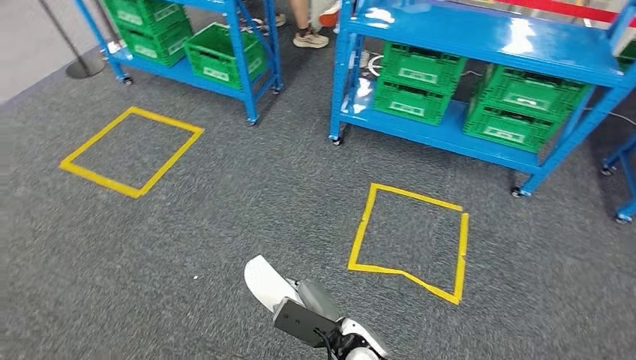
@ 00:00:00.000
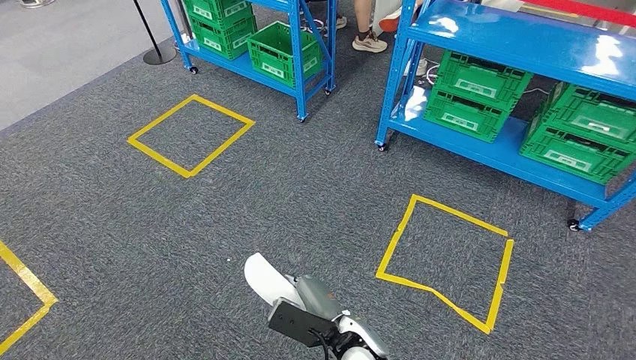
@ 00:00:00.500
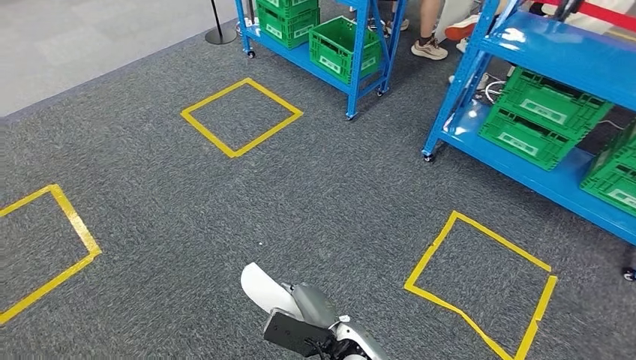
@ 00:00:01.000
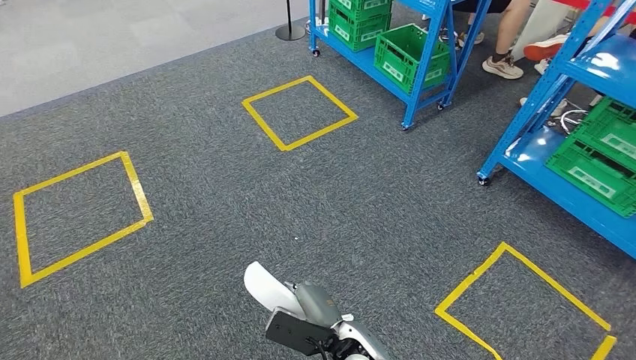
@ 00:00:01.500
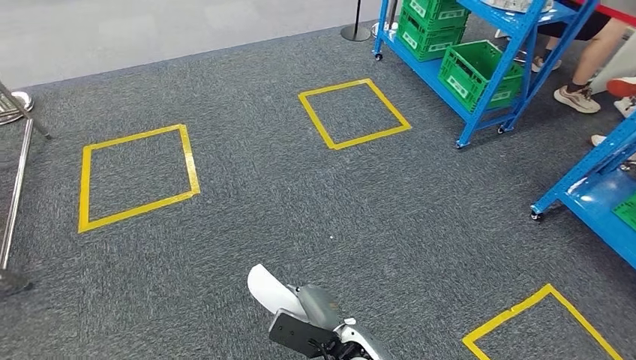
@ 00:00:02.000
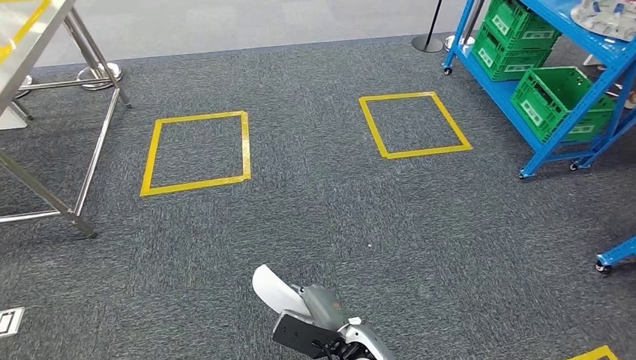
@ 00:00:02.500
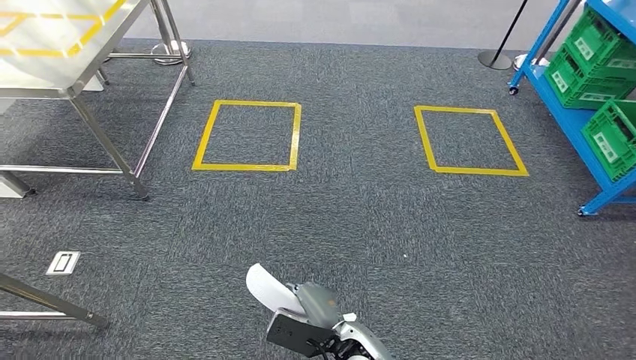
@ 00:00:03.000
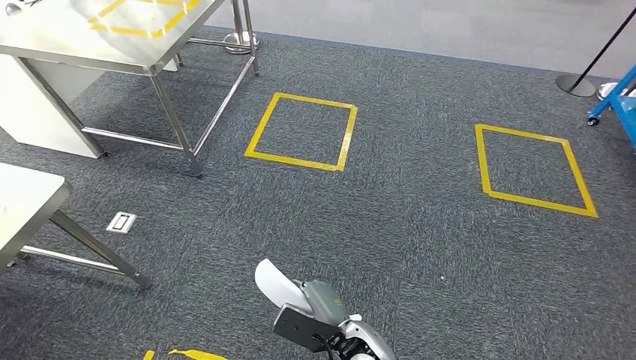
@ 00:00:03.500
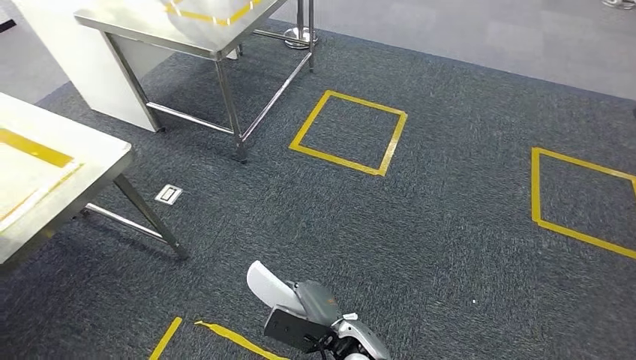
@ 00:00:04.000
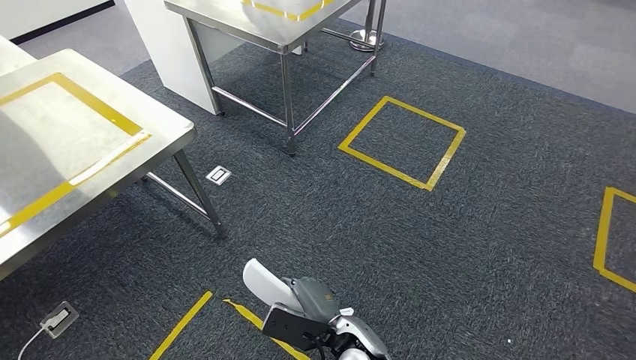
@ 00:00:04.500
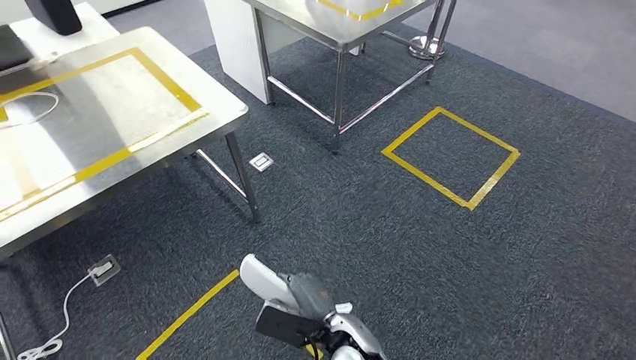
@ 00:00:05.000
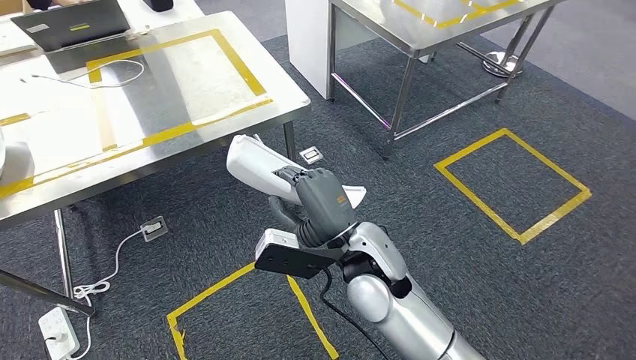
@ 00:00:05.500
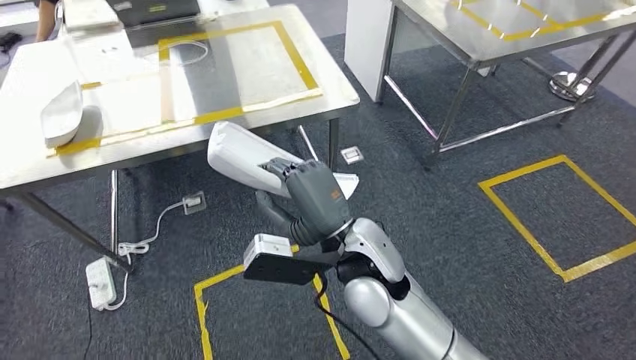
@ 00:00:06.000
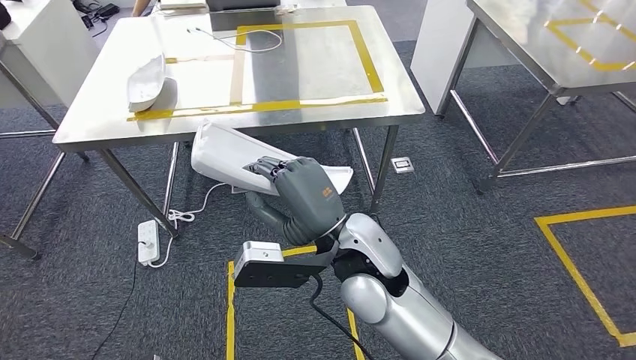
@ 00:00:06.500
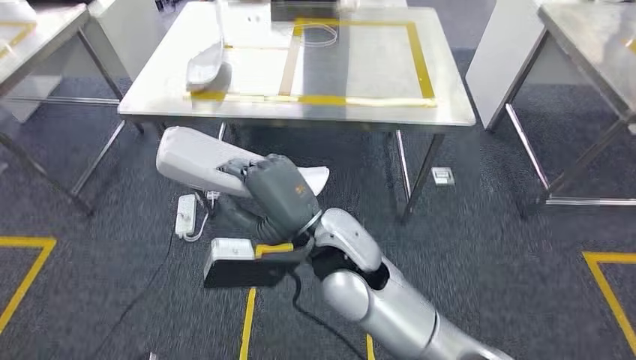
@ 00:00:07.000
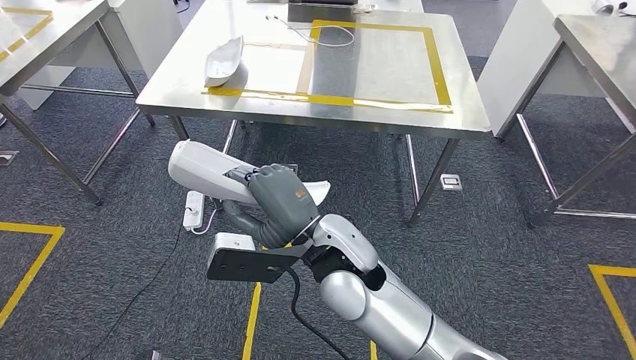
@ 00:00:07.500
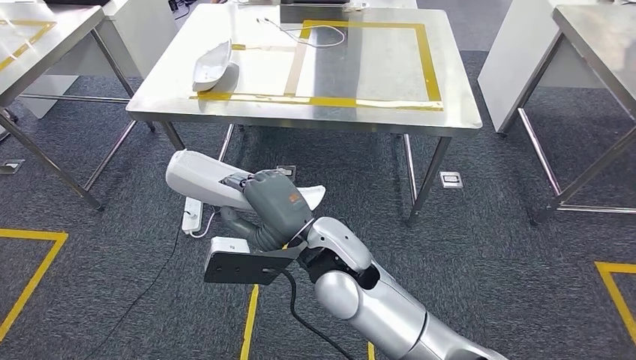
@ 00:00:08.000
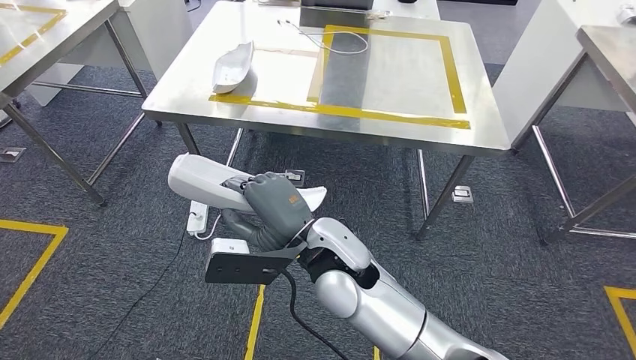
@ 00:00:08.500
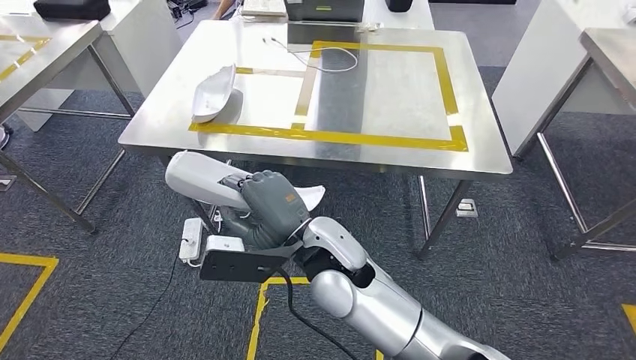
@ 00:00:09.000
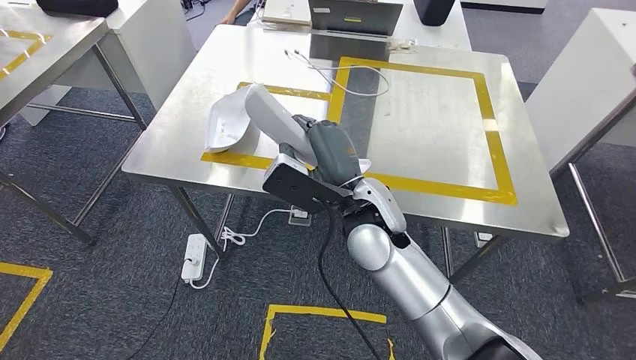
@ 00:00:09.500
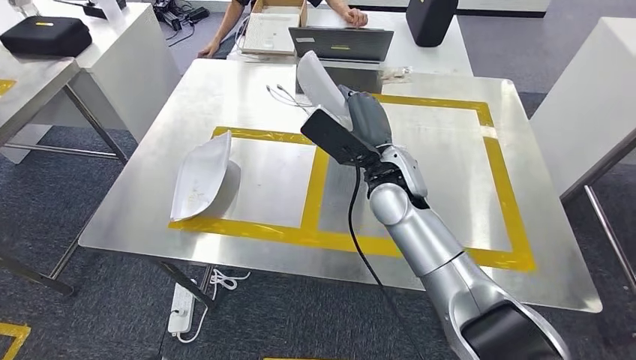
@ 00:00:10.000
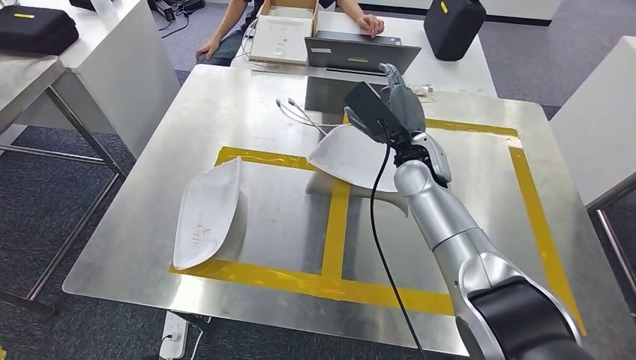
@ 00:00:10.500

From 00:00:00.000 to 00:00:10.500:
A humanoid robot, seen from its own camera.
Step, from 00:00:00.000 to 00:00:09.000: Move the small parts to the workbench.

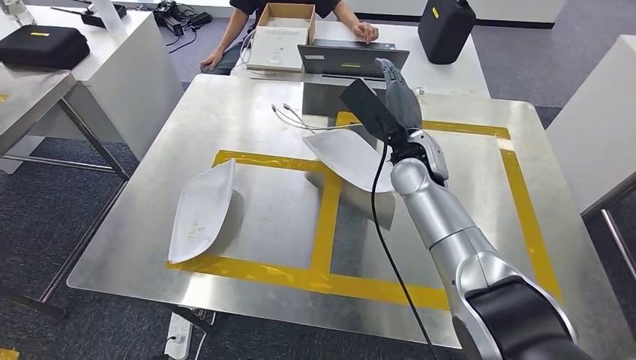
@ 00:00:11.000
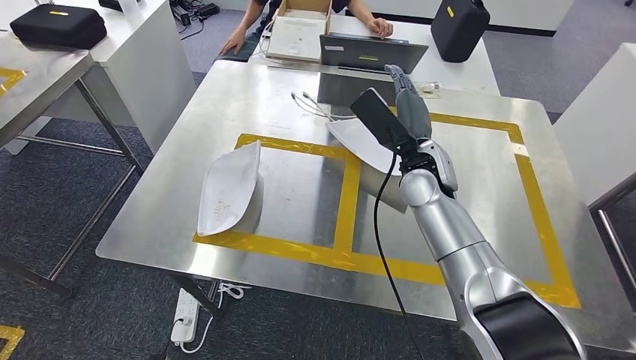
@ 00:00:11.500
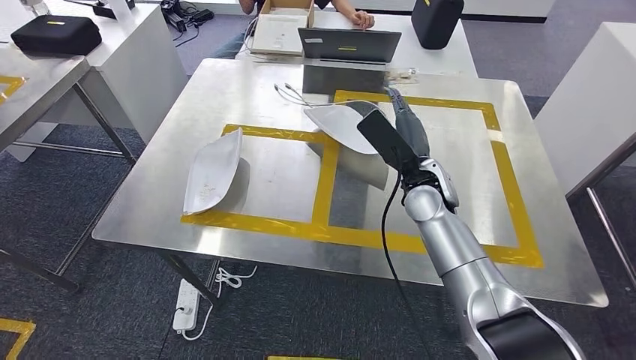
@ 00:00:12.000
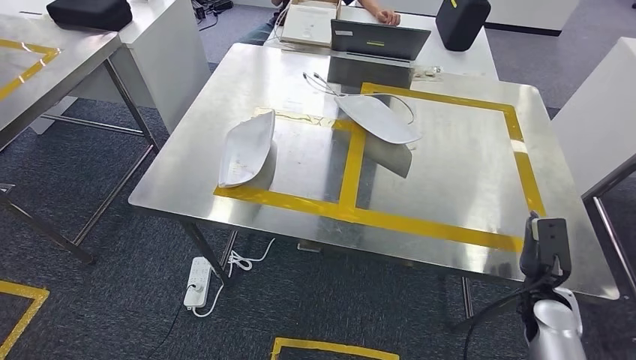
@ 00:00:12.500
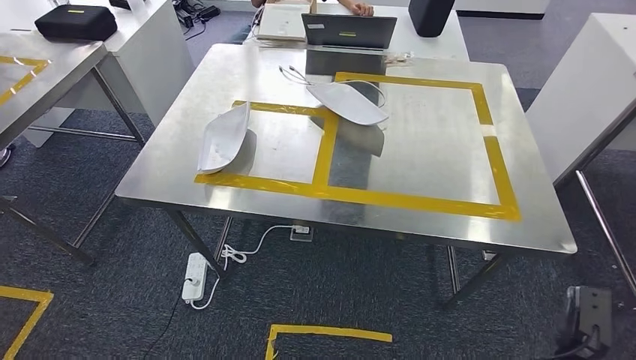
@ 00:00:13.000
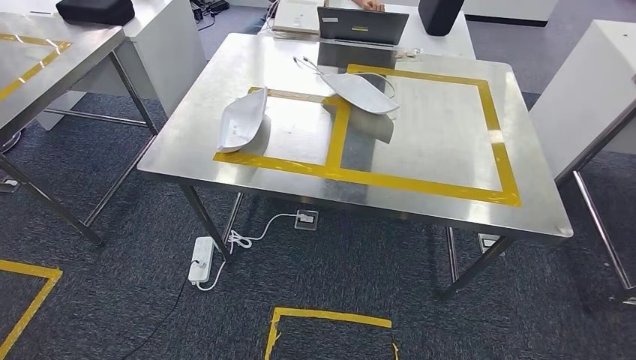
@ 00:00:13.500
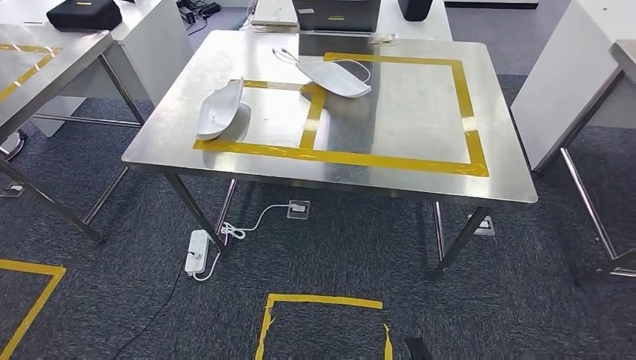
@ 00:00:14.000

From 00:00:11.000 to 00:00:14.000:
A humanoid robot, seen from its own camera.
Step, from 00:00:11.000 to 00:00:14.000: Return to the initial position at the workbench.
